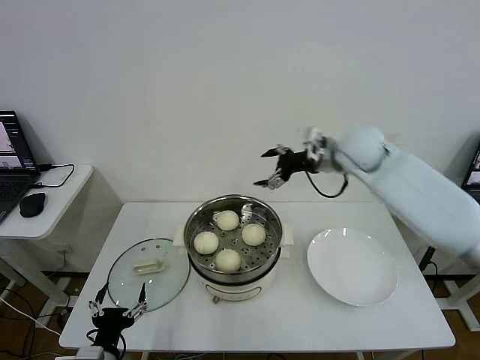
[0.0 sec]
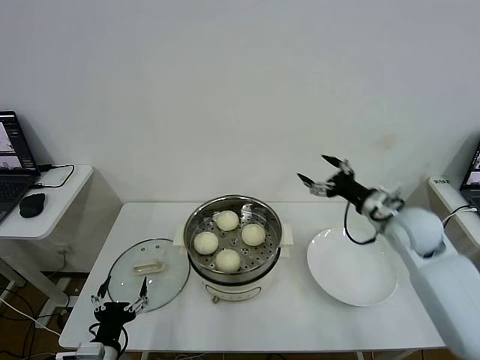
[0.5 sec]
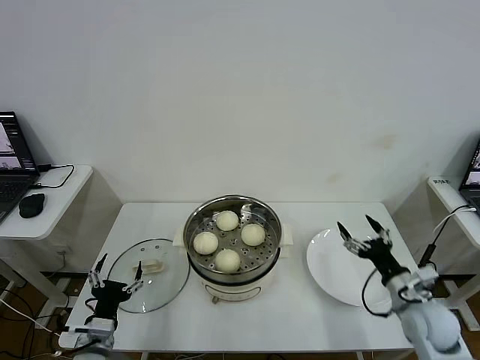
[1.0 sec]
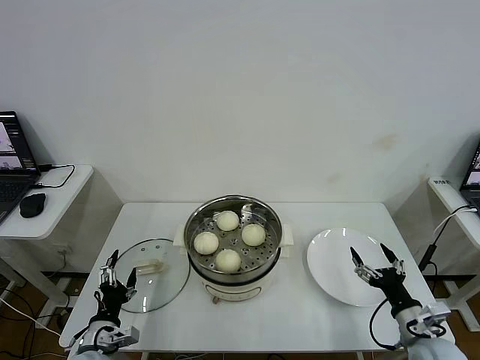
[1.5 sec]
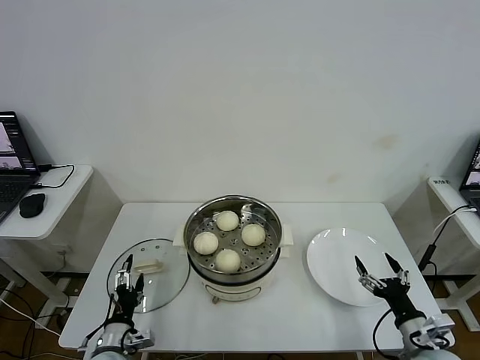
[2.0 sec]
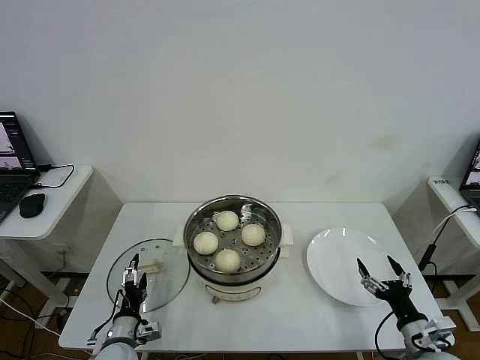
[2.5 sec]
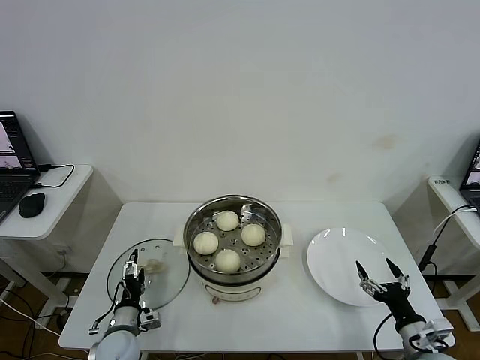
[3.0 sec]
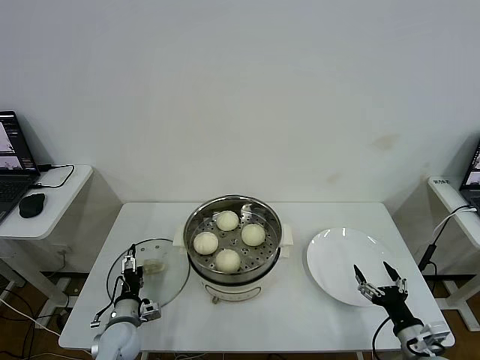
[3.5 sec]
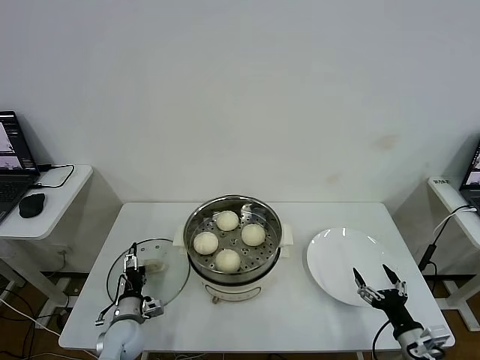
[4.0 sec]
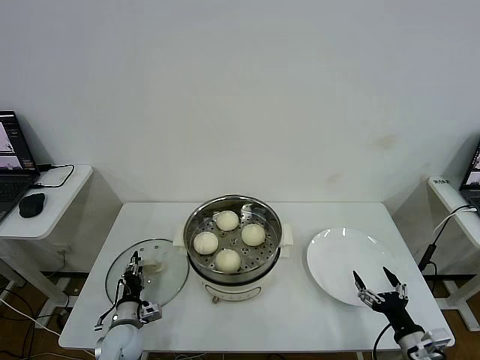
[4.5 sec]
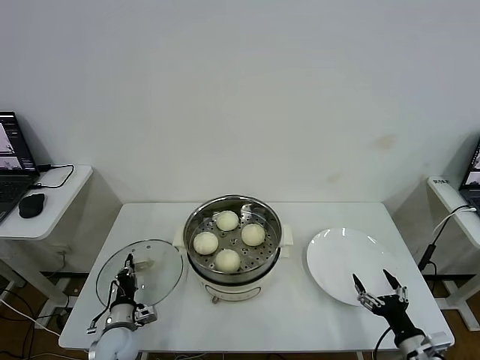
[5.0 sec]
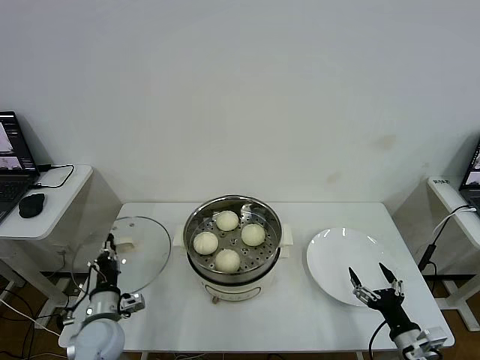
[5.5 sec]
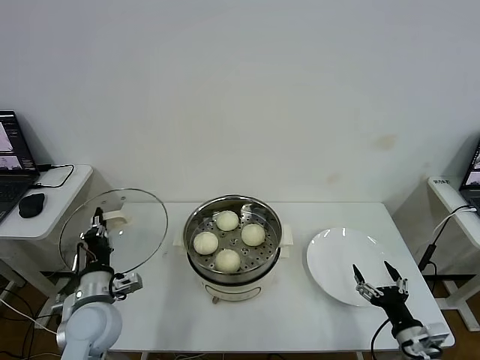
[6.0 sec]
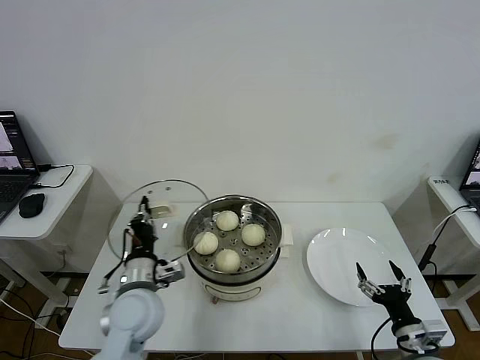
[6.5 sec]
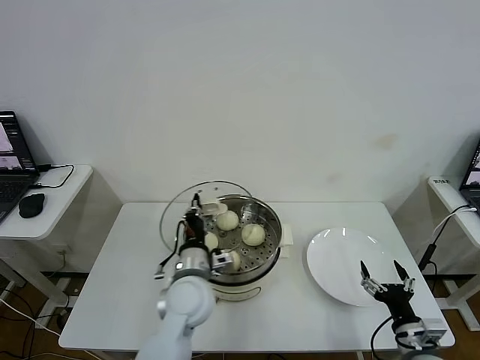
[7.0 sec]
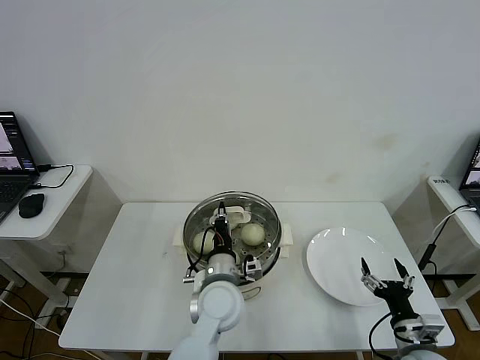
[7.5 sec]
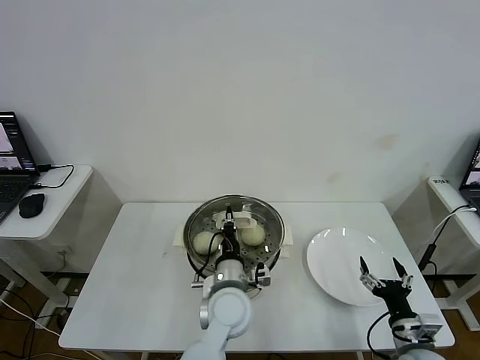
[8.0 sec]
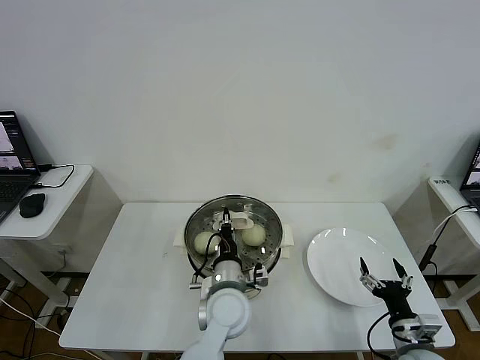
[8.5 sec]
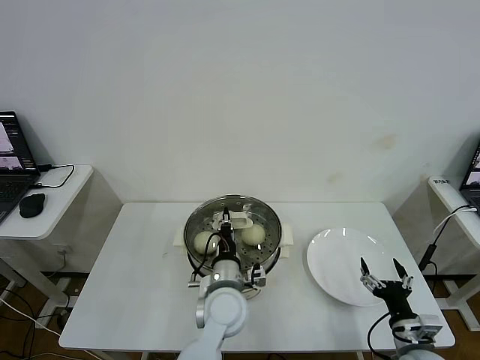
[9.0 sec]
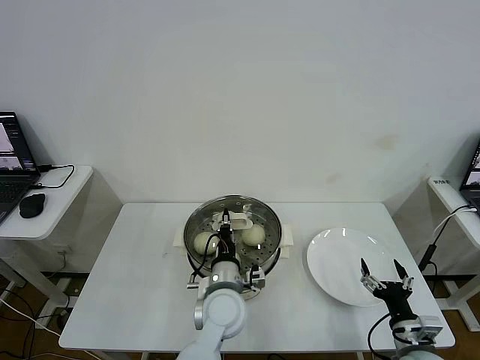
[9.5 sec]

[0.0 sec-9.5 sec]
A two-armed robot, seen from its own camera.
Step, 0.0 sec to 4.5 sec: Grasp the pot lid with left gripper.
0.0 sec to 2.0 sec: The left gripper shifts approximately 10 cm forward and downward. The right gripper shifts some 50 cm backward, downward and to the right.
2.0 sec to 4.0 sec: The left gripper shifts about 10 cm forward.
4.0 sec to 5.5 sec: The left gripper heads upward, covering roughly 10 cm, and closes up.
5.5 sec to 7.5 sec: The left gripper travels to the right by some 25 cm.
7.5 sec to 9.5 sec: The grippers make only small movements.

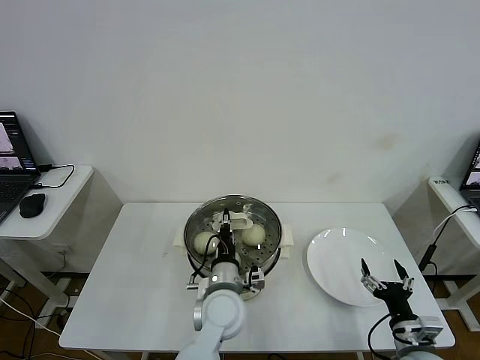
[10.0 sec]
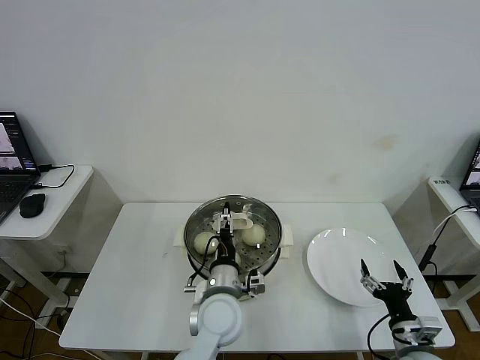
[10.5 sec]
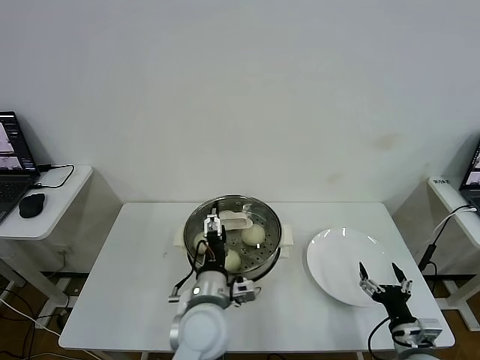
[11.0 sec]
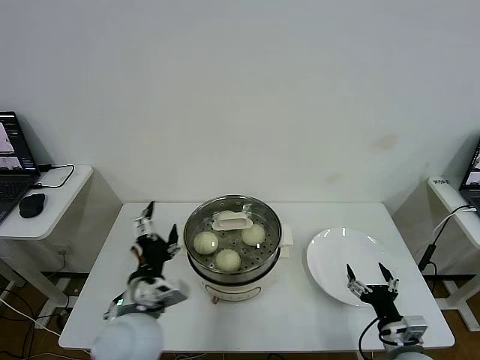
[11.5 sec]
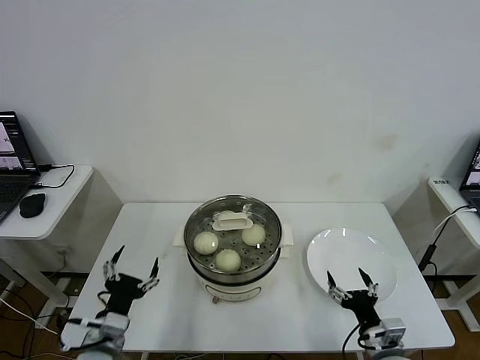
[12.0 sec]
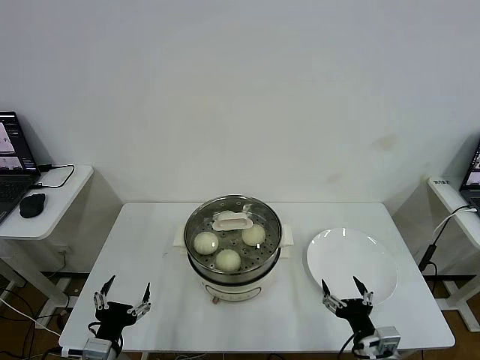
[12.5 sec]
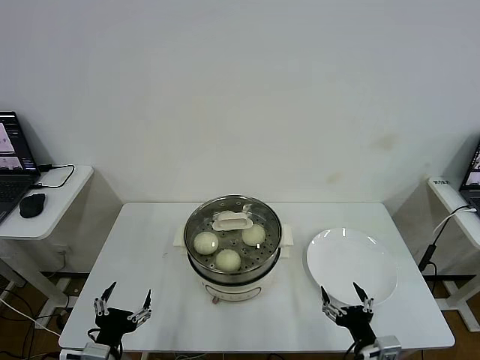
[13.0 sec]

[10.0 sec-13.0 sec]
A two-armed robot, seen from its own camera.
10.0 sec to 11.5 sec: The left gripper heads to the left, upward and backward, covering approximately 15 cm, and opens.
11.5 sec to 13.0 sec: The left gripper moves to the left, downward and backward, roughly 20 cm; the right gripper is displaced to the left by approximately 5 cm.

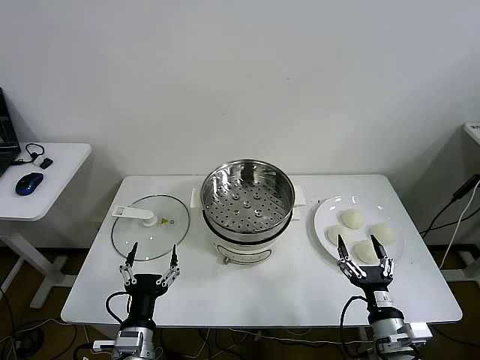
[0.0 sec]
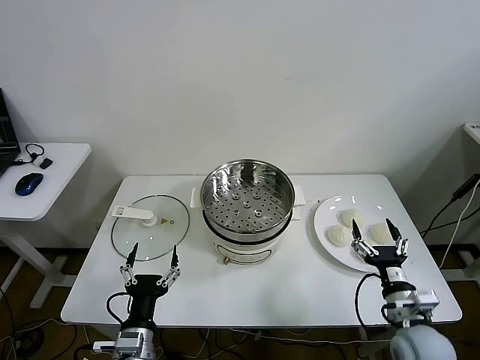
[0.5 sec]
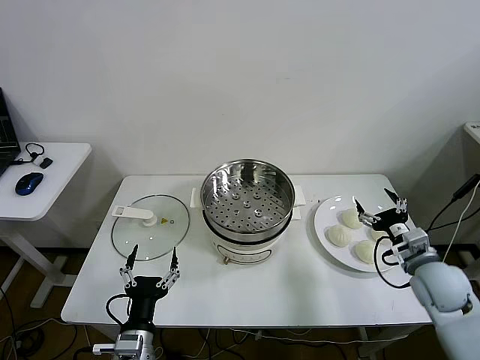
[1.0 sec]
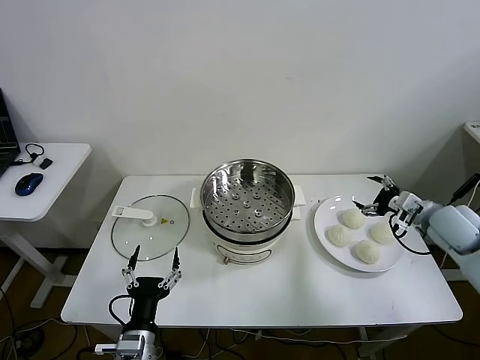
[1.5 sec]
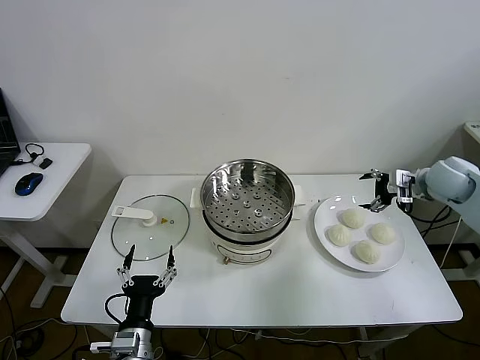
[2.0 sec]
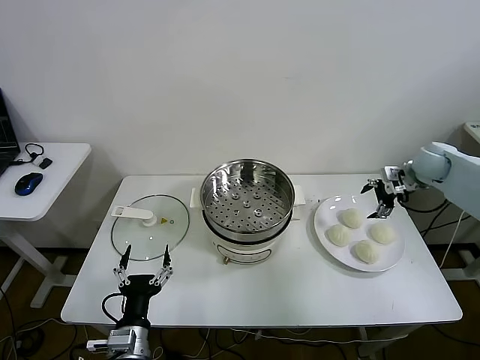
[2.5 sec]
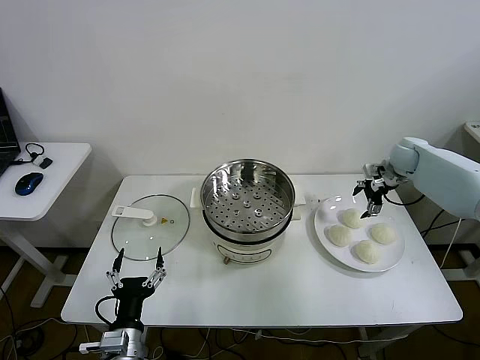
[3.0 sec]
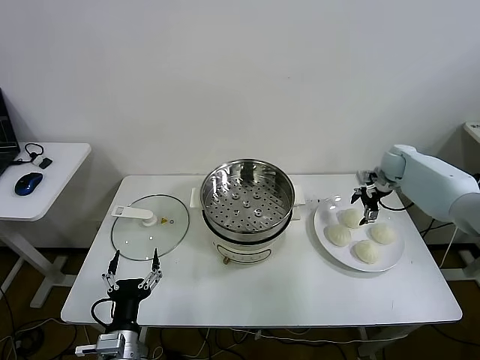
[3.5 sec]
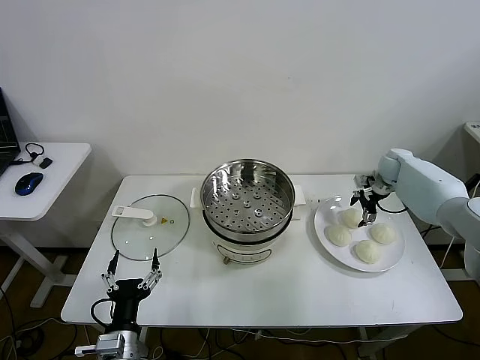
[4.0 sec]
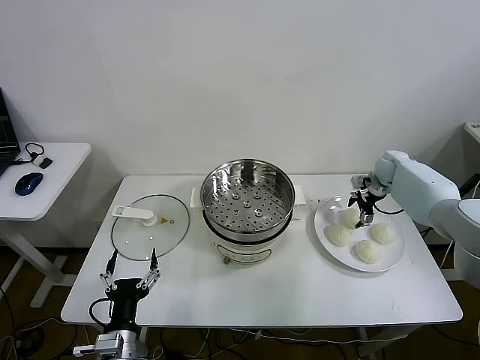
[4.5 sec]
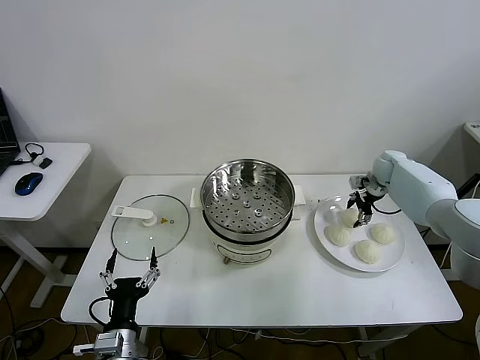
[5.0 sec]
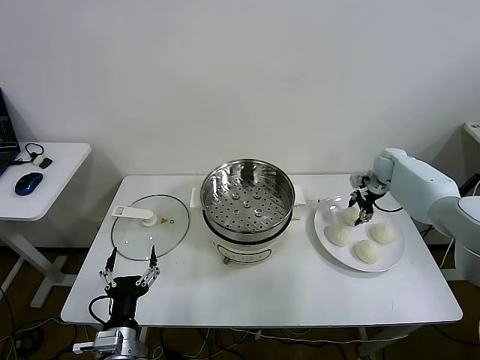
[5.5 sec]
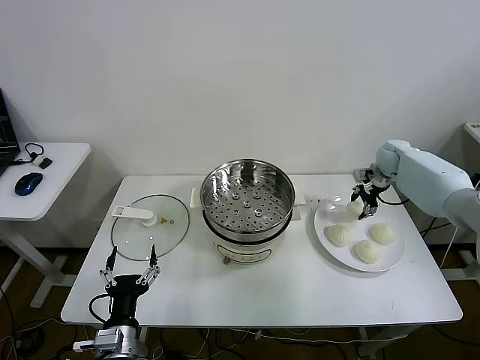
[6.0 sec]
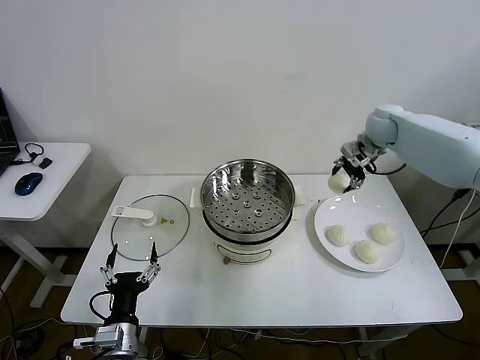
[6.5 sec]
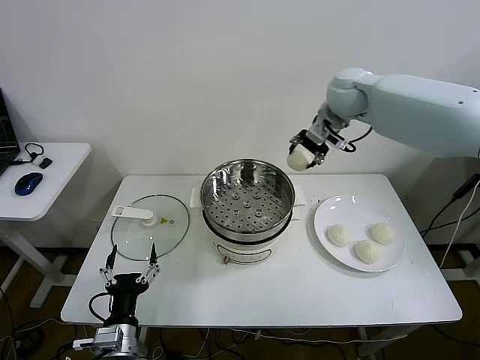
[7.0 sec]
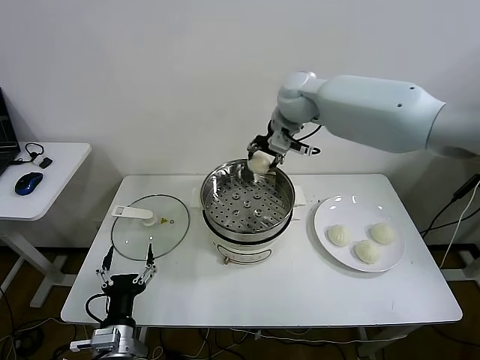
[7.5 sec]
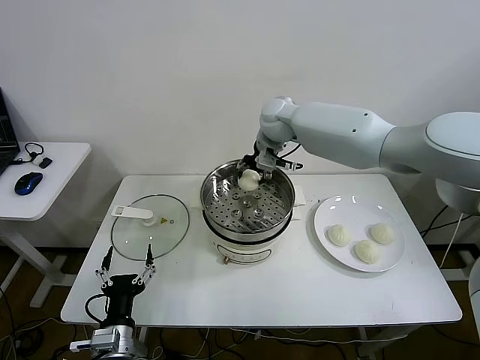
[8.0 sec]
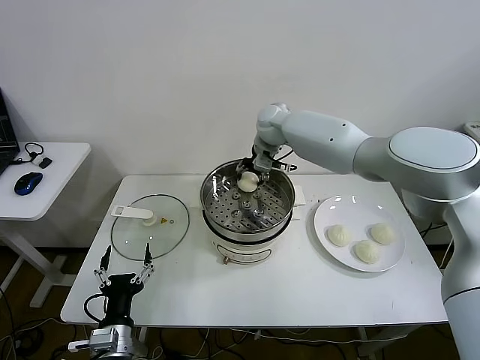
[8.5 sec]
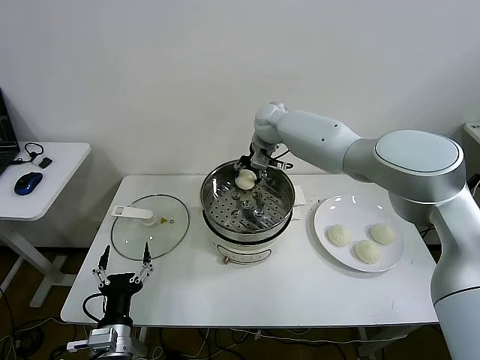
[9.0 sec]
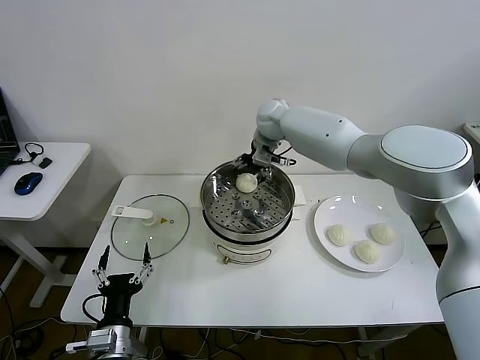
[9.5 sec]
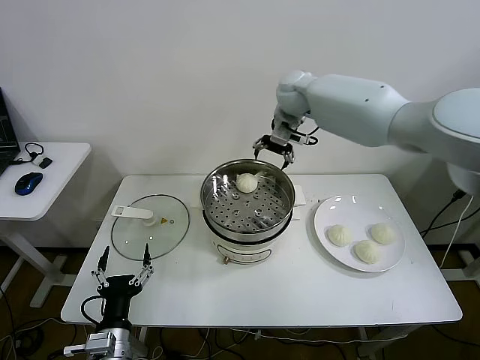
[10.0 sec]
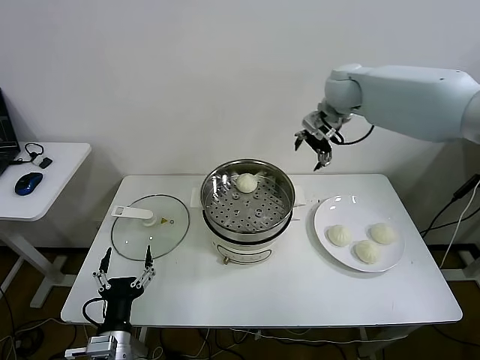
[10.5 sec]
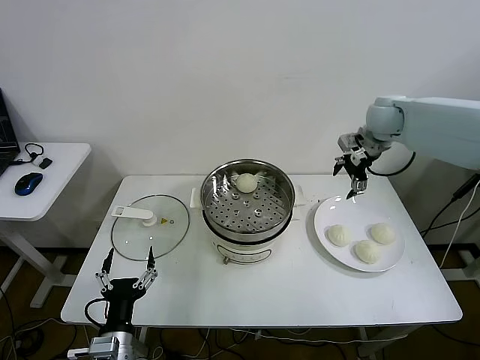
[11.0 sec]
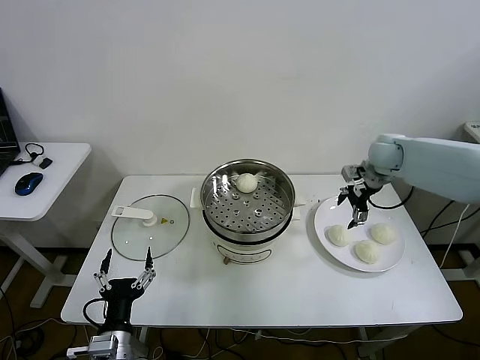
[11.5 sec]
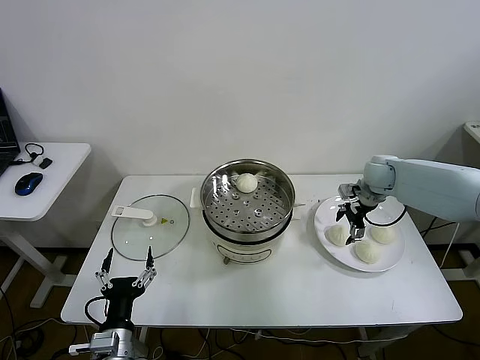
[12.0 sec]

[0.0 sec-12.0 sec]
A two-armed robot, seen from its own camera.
Step, 0.0 sec to 5.0 sec: Grasp the baozi in the plate with right gripper.
Step, 5.5 sec to 9.5 sec: Place the baozi on the steamer with right gripper.
2.0 sec to 4.0 sec: The right gripper shifts about 15 cm forward and downward.
4.0 sec to 6.0 sec: The right gripper shifts by about 5 cm, and closes its fingers.
6.0 sec to 8.0 sec: The right gripper goes some 30 cm to the left.
8.0 sec to 10.0 sec: The right gripper is displaced upward and to the right by some 10 cm, and opens up.
10.0 sec to 12.0 sec: The right gripper goes approximately 30 cm to the right and downward.

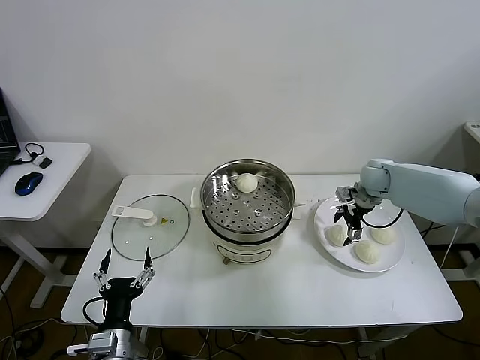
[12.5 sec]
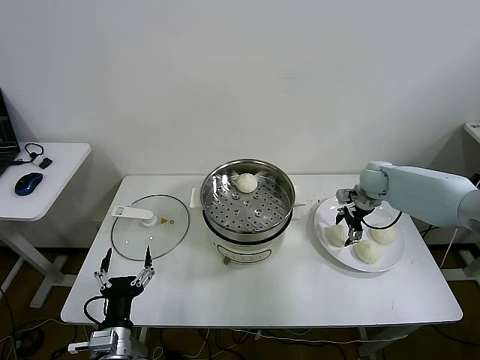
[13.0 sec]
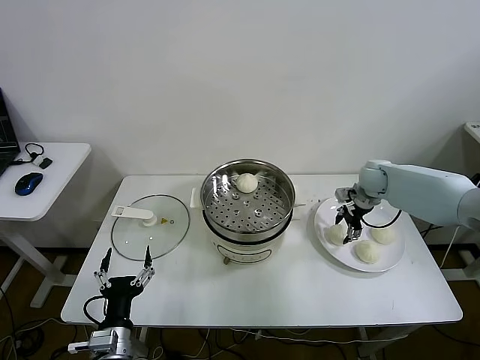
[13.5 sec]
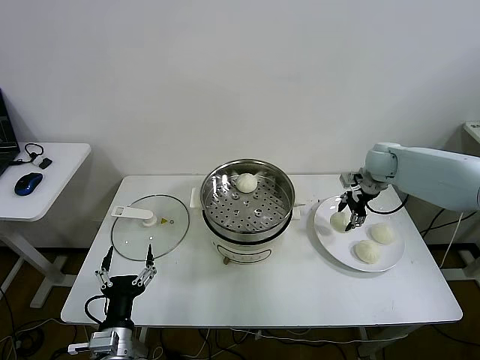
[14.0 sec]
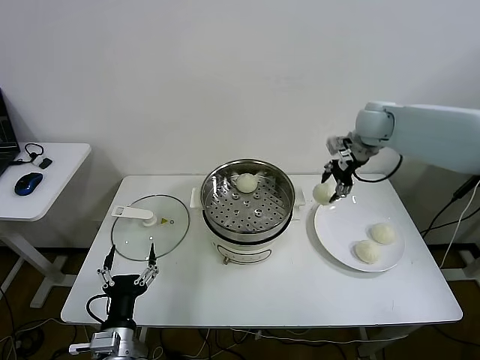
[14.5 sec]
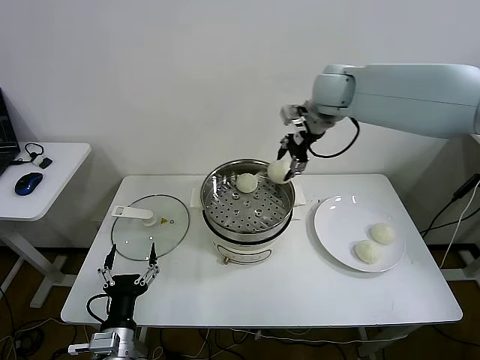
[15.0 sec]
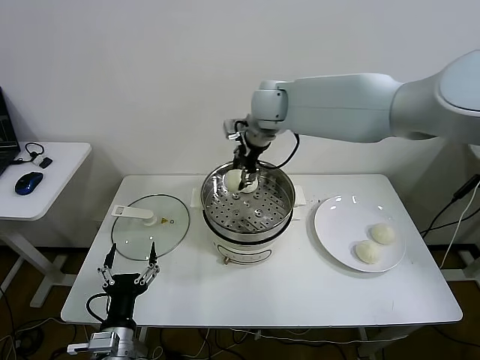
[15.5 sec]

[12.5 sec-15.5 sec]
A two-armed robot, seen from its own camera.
12.5 sec to 14.0 sec: The right gripper travels upward by some 5 cm, and closes up.
14.0 sec to 15.5 sec: The right gripper moves to the left and upward, approximately 35 cm.
